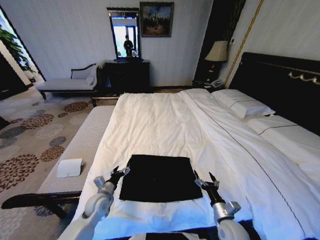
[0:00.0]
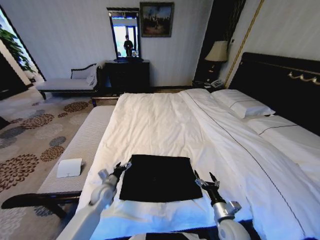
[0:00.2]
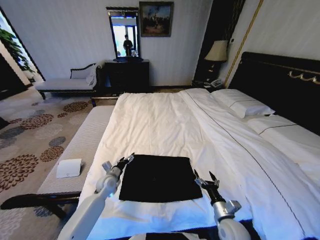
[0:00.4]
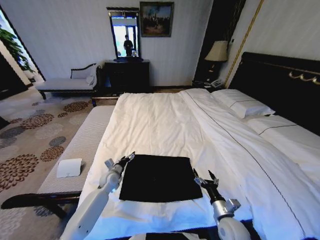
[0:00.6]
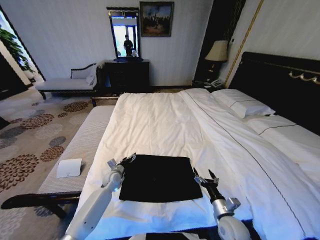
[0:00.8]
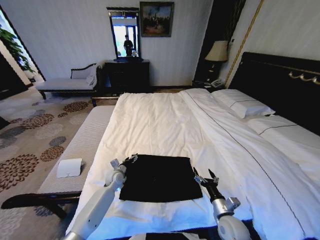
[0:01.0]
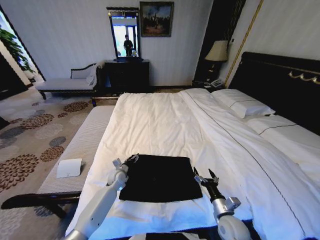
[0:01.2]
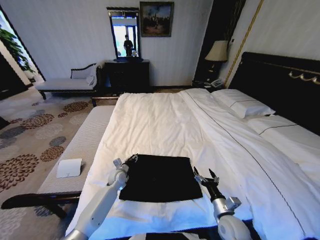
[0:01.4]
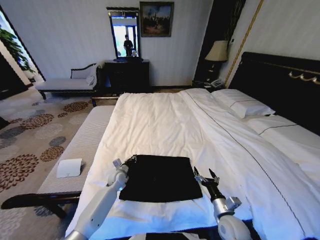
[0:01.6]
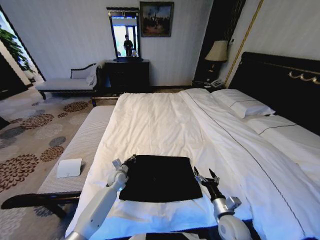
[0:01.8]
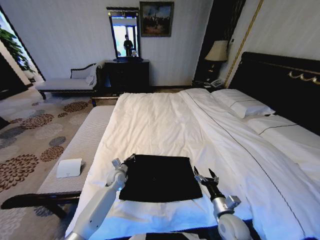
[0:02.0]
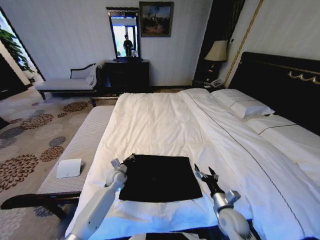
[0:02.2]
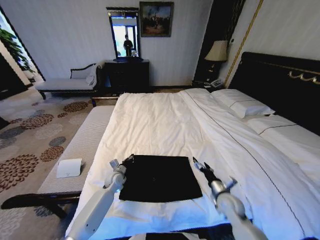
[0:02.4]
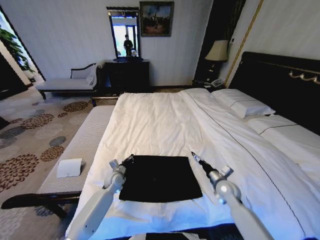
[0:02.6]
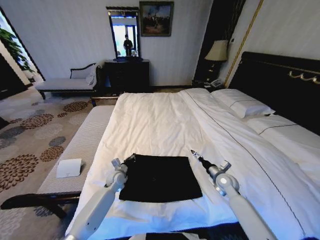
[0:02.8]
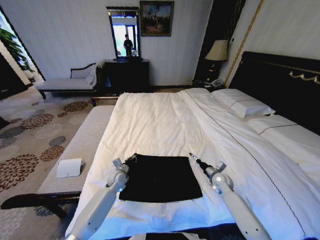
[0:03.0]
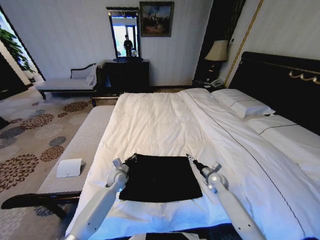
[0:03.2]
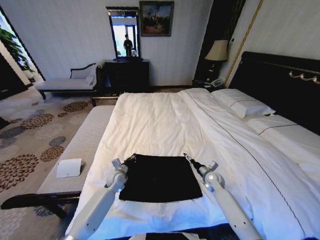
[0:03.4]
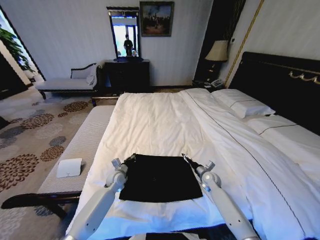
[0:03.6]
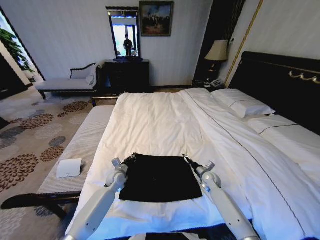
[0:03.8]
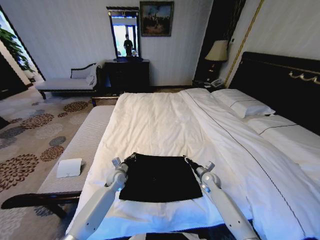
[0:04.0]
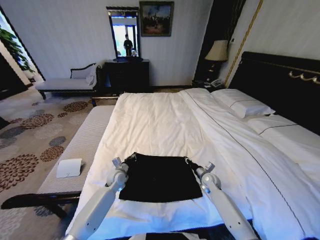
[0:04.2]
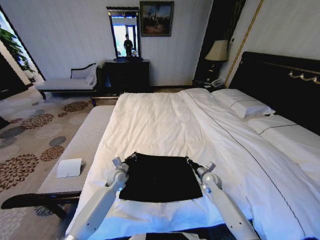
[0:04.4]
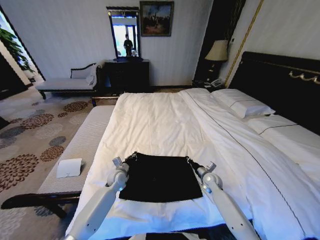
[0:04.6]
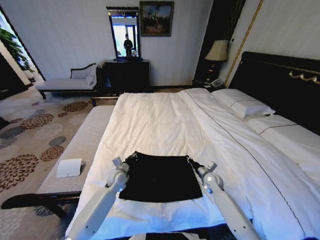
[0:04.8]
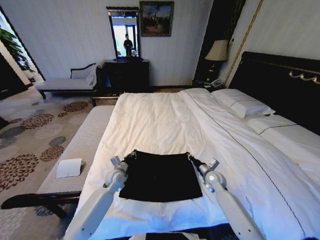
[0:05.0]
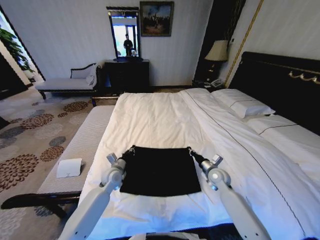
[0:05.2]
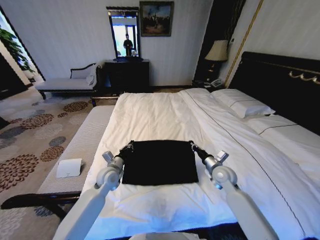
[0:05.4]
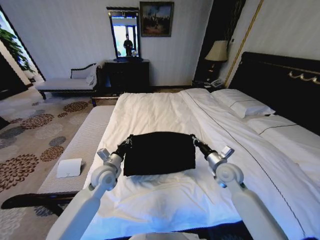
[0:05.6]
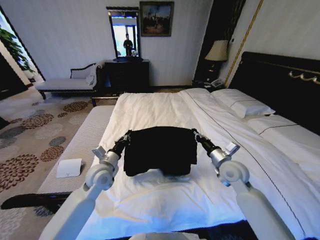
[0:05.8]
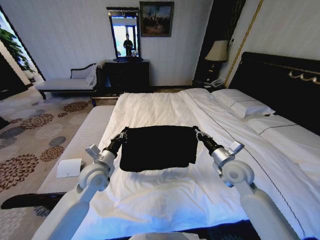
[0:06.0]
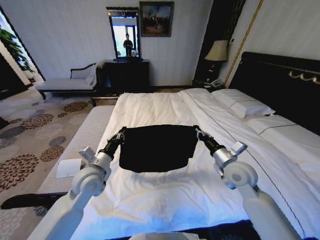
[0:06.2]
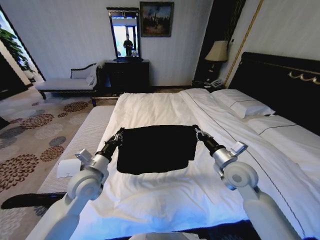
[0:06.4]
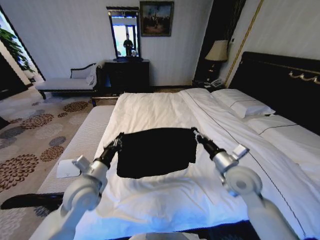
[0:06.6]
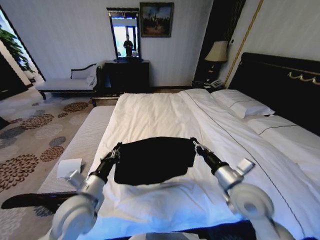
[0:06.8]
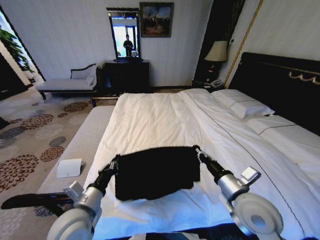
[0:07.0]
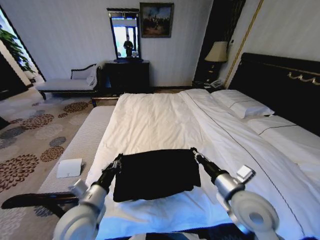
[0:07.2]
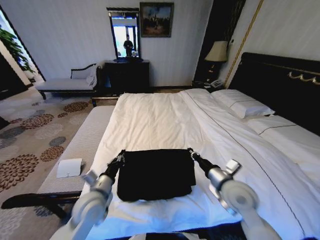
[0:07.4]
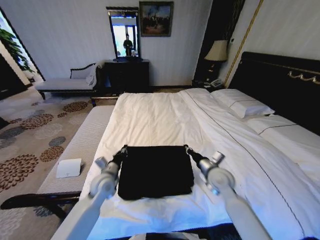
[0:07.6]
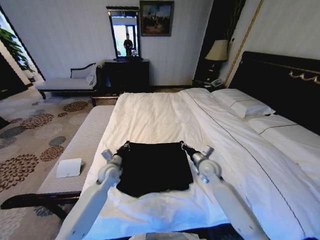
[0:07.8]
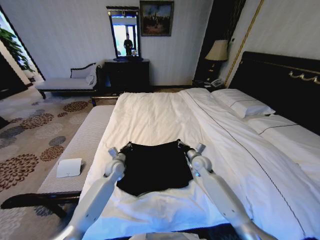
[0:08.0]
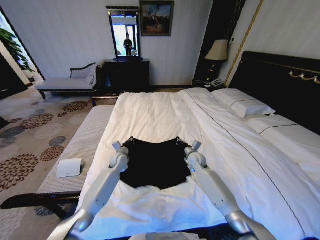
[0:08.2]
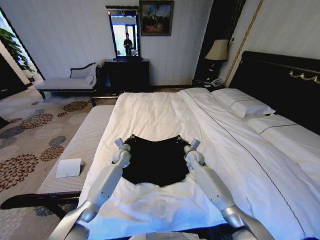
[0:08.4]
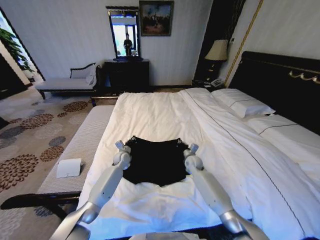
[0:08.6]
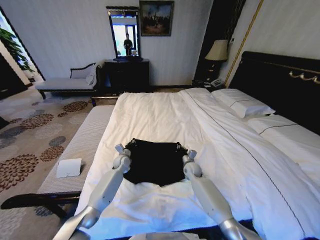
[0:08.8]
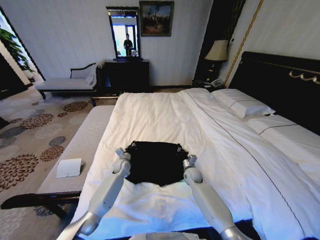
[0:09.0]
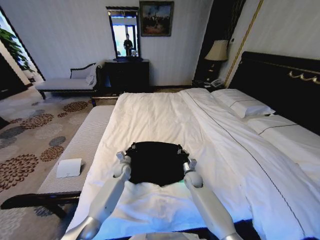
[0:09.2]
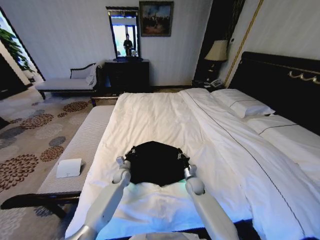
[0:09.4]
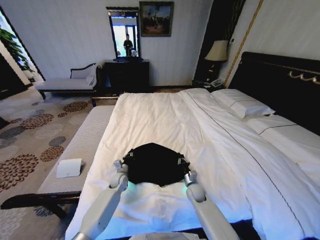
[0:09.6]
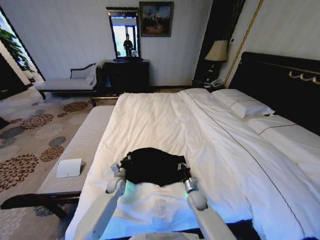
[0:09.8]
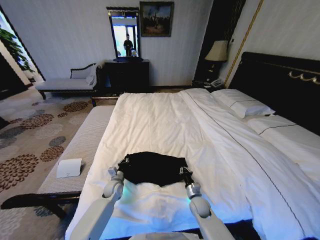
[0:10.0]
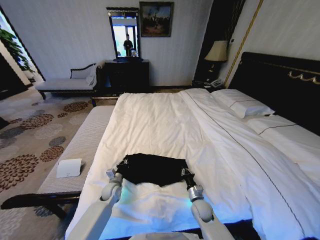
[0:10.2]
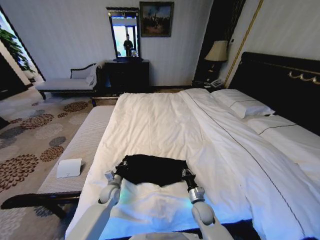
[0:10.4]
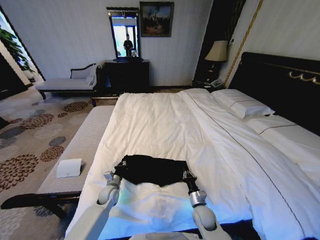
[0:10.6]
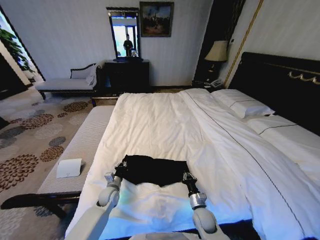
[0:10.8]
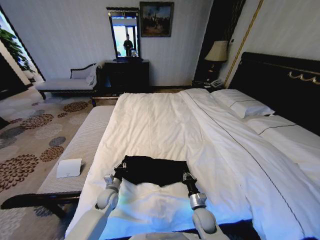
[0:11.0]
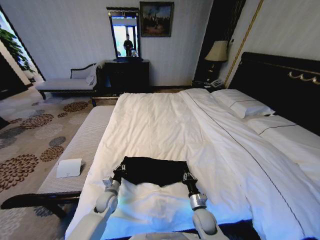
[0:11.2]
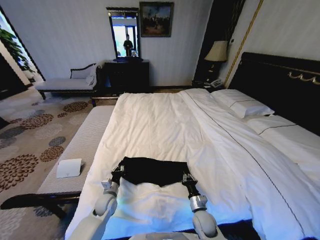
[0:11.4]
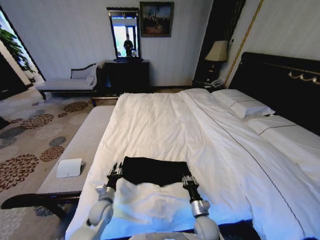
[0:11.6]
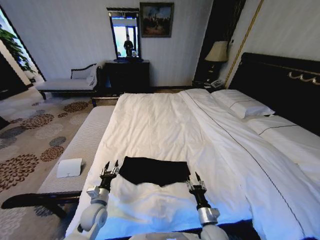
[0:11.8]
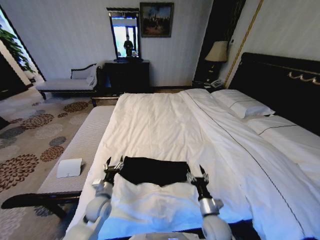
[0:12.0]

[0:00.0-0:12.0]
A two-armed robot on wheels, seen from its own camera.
Task of the whole recording: Fold the clothes on the bed.
0:00.0 to 0:01.6: The left gripper is displaced forward by roughly 15 cm, and closes up.
0:01.6 to 0:03.0: The right gripper travels forward by approximately 20 cm.
0:03.0 to 0:04.4: The right gripper closes up.
0:04.4 to 0:06.0: The left gripper goes approximately 20 cm upward and backward. The right gripper shifts approximately 25 cm upward.
0:06.0 to 0:07.6: The right gripper moves approximately 15 cm backward and comes back; the left gripper moves downward, some 10 cm, and reaches some 15 cm backward, then returns.
0:07.6 to 0:09.0: The left gripper travels forward and downward by about 20 cm, while the right gripper heads downward and forward, covering approximately 20 cm.
0:09.0 to 0:10.4: Both grippers travel together backward, roughly 15 cm.
0:10.4 to 0:12.0: The grippers both shift backward and upward by roughly 10 cm. The left gripper opens its fingers, while the right gripper opens up.

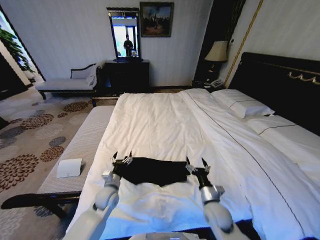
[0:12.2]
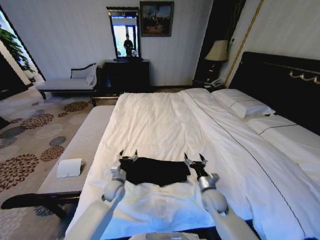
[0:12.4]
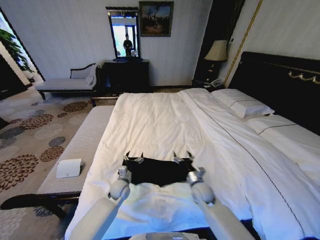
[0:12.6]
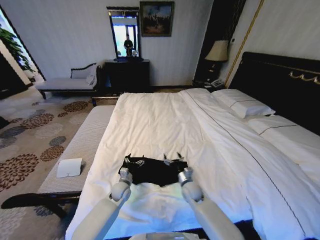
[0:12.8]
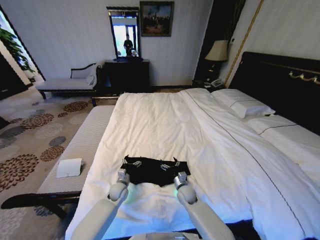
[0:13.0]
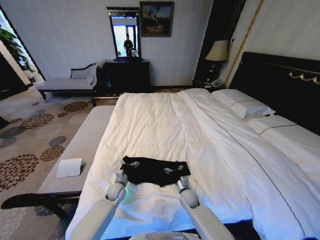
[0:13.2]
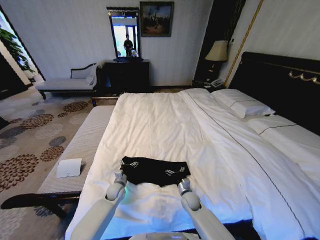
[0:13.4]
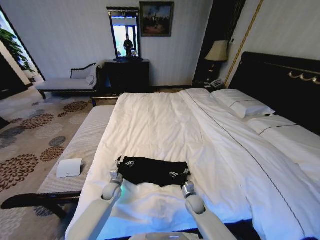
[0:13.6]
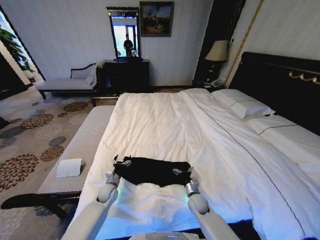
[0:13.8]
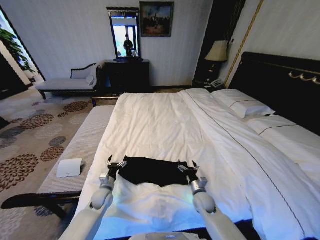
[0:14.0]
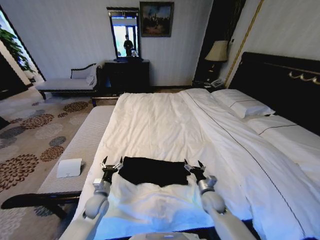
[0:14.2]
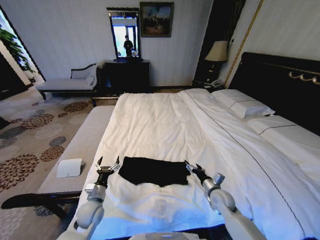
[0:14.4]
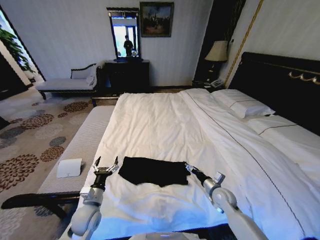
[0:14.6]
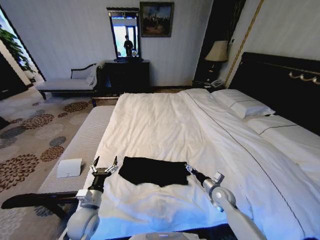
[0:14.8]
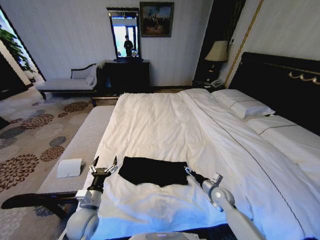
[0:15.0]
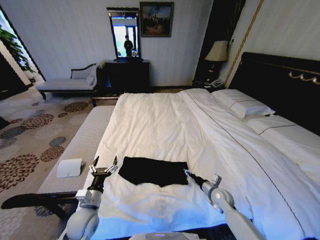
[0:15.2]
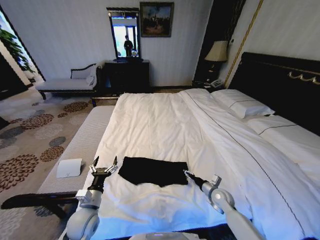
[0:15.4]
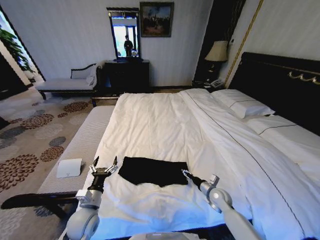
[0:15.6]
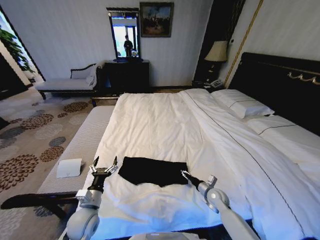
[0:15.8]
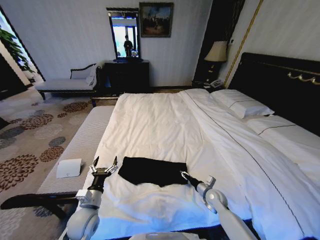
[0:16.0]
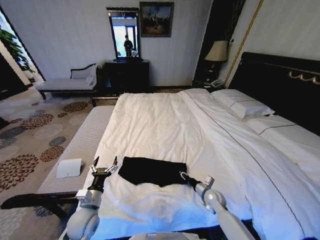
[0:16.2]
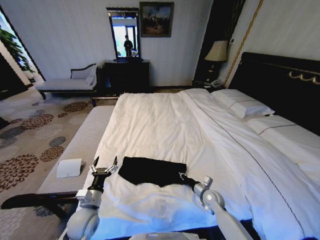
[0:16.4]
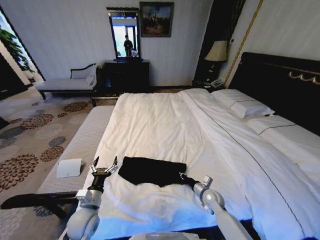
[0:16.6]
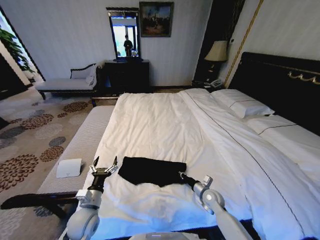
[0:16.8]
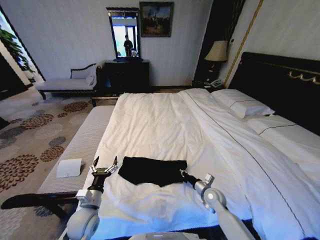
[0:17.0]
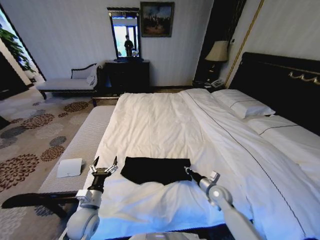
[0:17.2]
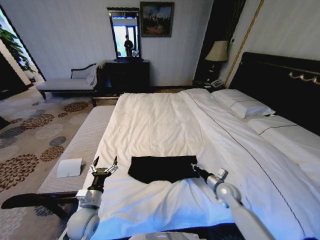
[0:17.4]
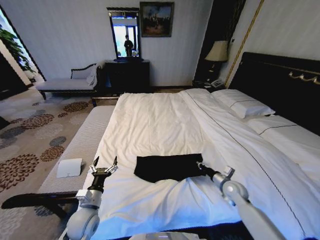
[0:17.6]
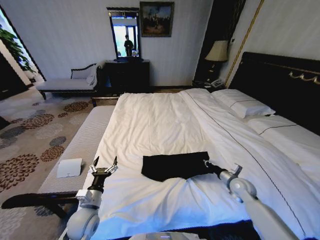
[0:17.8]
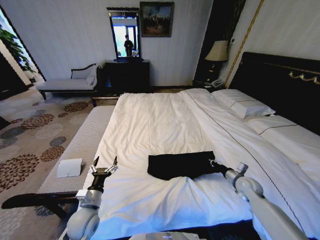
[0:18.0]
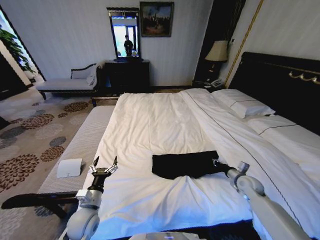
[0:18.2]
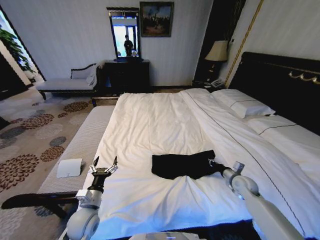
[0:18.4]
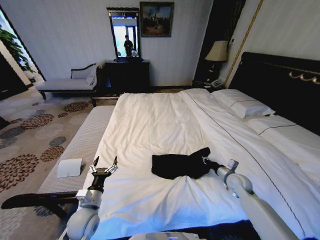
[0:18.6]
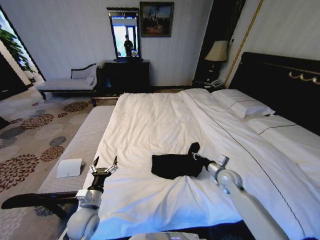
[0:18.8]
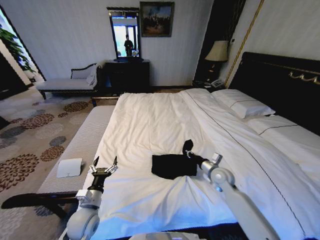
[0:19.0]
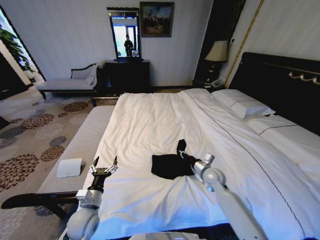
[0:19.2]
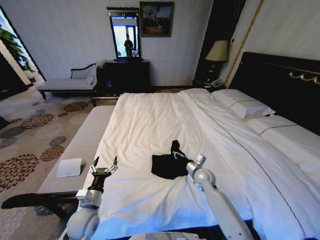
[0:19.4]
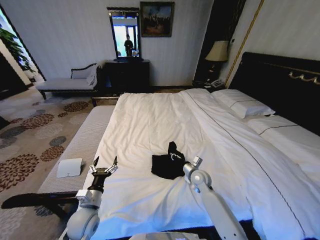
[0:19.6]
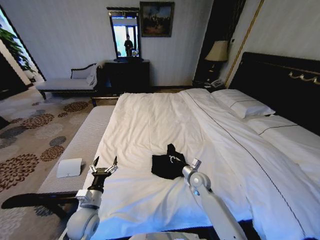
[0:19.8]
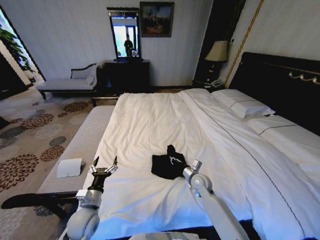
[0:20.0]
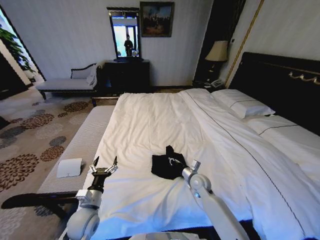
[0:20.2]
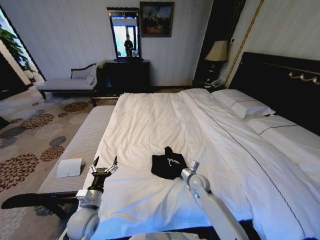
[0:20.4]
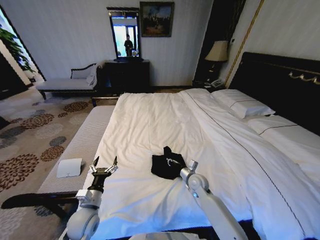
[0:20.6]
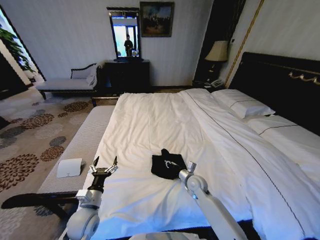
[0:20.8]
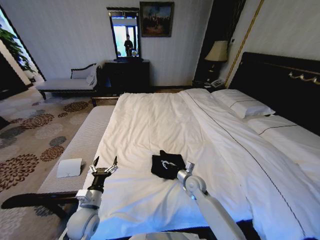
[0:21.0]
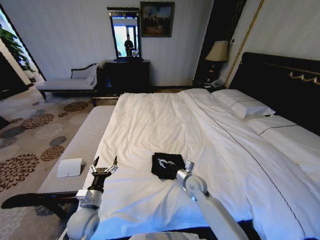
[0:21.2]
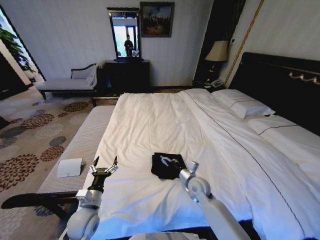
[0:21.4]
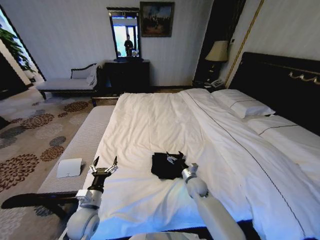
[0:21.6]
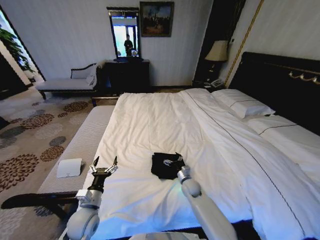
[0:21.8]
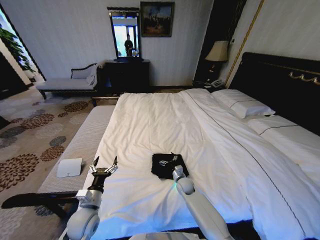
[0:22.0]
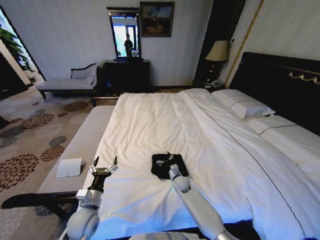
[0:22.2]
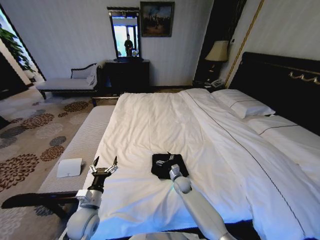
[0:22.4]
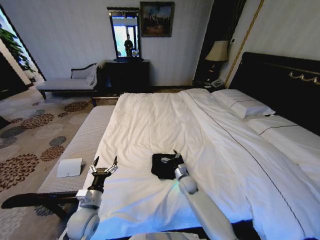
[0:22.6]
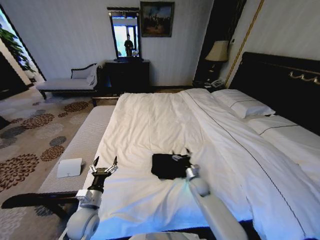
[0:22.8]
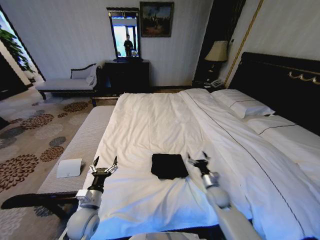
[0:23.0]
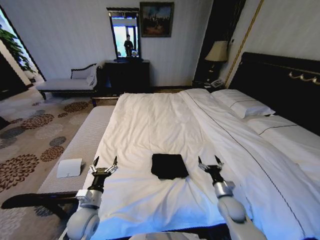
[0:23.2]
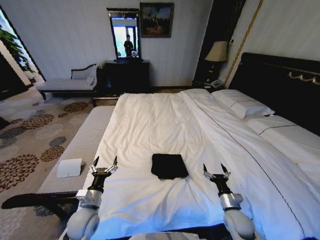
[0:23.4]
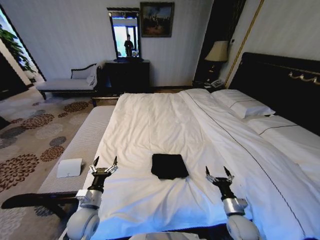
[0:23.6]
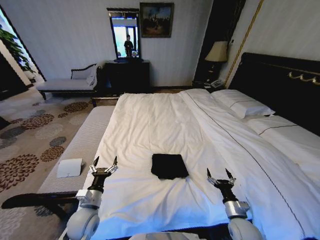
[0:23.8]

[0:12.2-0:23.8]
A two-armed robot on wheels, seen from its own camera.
Task of the whole recording: Fold the clothes on the bed.
0:12.2 to 0:13.6: The grippers both shift downward and forward by some 15 cm.
0:13.6 to 0:15.0: The right gripper moves to the right and upward, roughly 15 cm. Meanwhile the left gripper heads backward and upward, covering approximately 20 cm.
0:15.0 to 0:16.6: The right gripper closes its fingers.
0:16.6 to 0:18.0: The right gripper heads to the right and upward, covering roughly 15 cm.
0:18.0 to 0:19.4: The right gripper heads to the left, covering approximately 20 cm.
0:19.4 to 0:21.0: The right gripper shifts by some 5 cm.
0:21.0 to 0:22.4: The right gripper moves downward, about 10 cm, and opens up.
0:22.4 to 0:23.8: The right gripper travels backward and to the right by approximately 30 cm.
